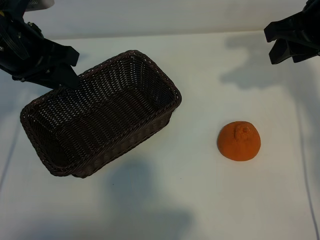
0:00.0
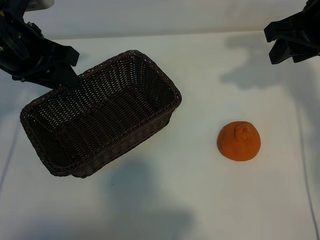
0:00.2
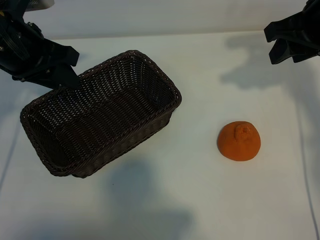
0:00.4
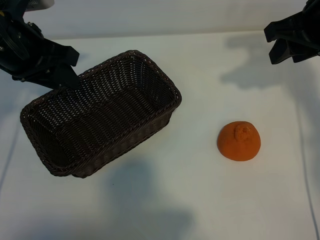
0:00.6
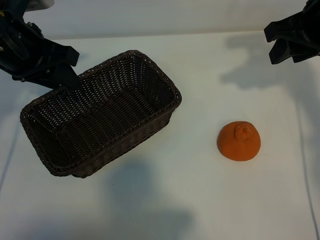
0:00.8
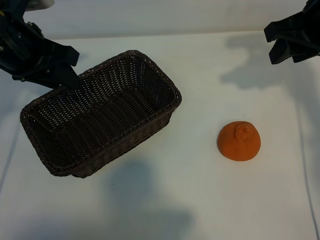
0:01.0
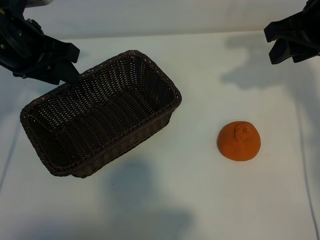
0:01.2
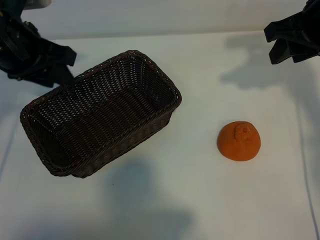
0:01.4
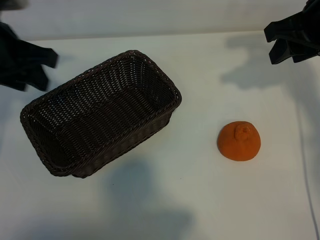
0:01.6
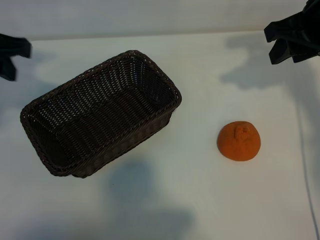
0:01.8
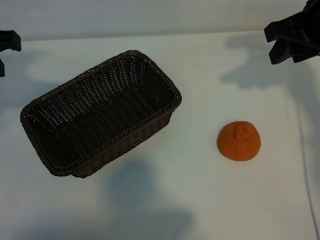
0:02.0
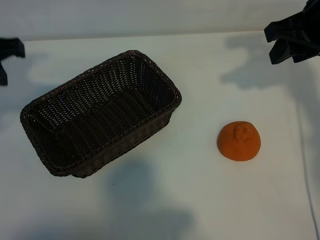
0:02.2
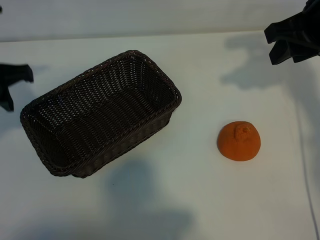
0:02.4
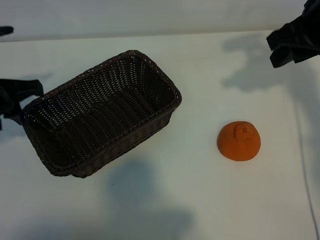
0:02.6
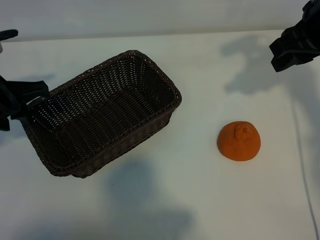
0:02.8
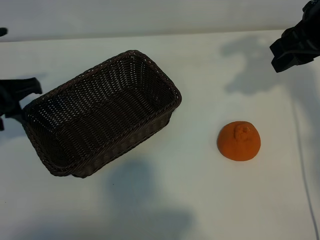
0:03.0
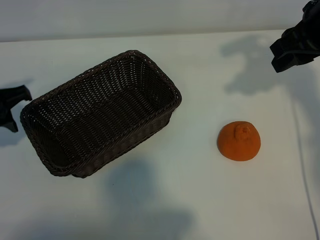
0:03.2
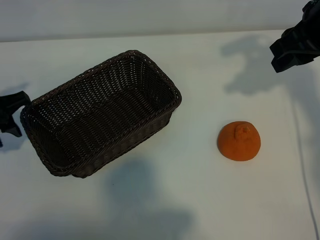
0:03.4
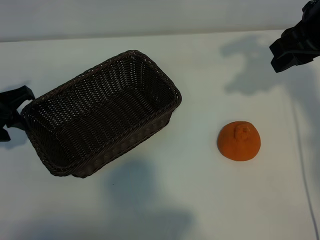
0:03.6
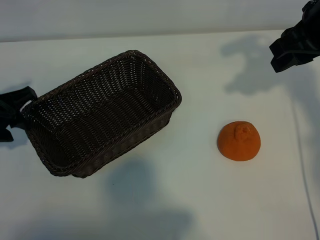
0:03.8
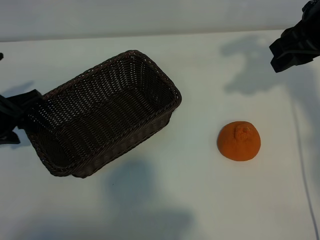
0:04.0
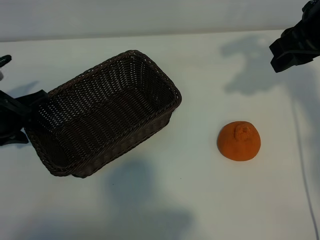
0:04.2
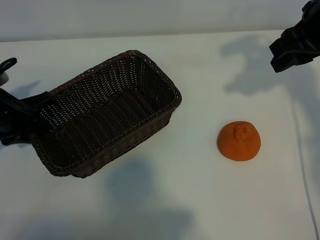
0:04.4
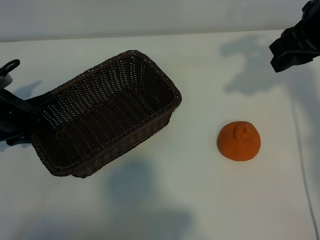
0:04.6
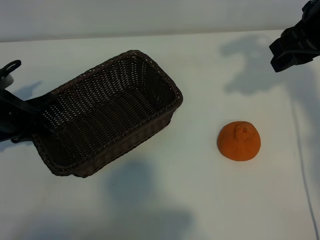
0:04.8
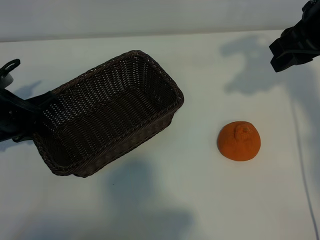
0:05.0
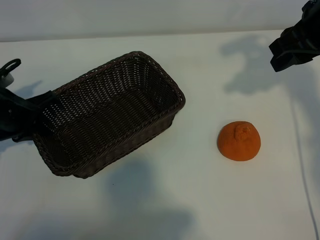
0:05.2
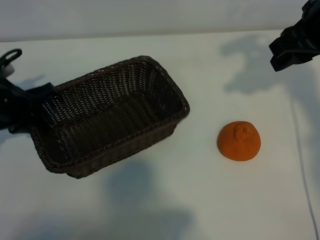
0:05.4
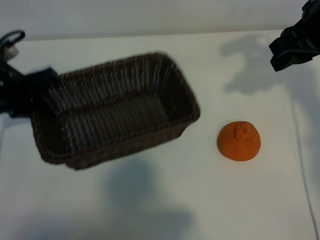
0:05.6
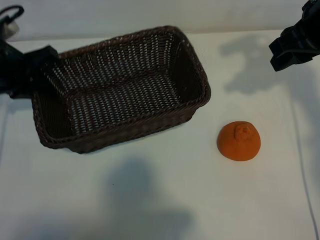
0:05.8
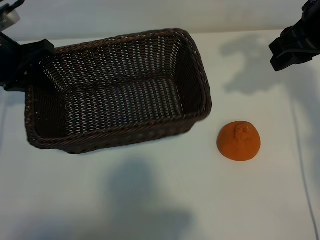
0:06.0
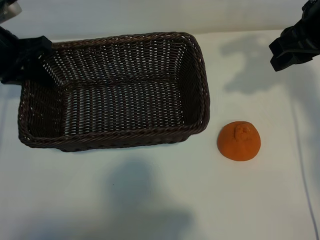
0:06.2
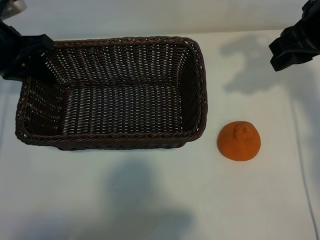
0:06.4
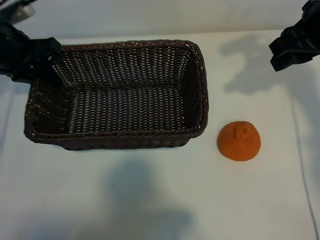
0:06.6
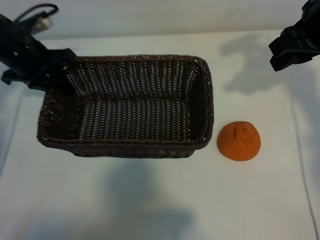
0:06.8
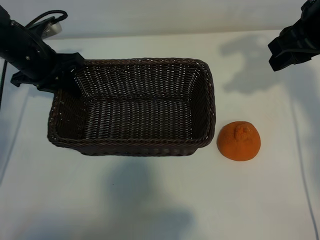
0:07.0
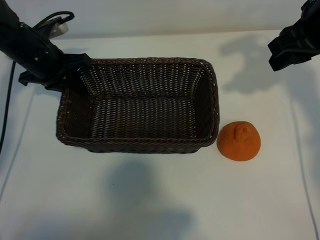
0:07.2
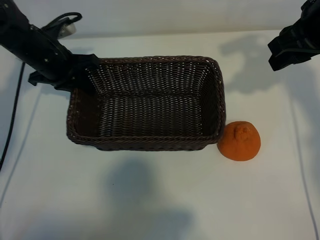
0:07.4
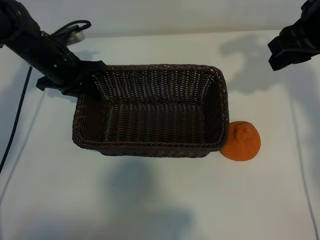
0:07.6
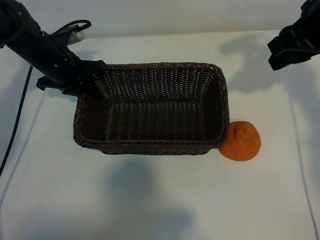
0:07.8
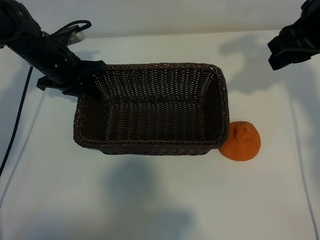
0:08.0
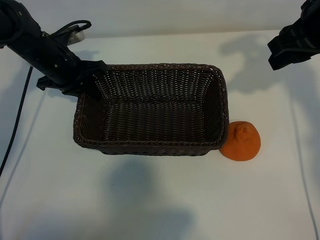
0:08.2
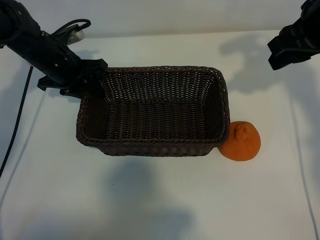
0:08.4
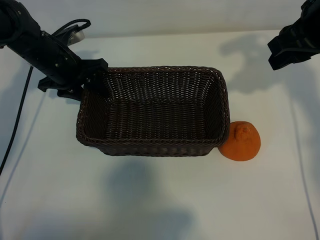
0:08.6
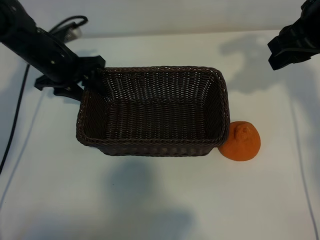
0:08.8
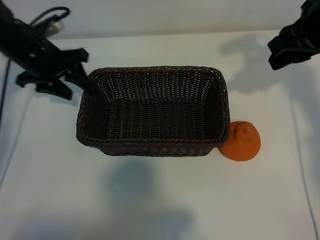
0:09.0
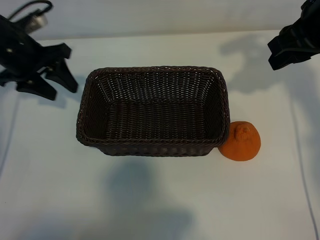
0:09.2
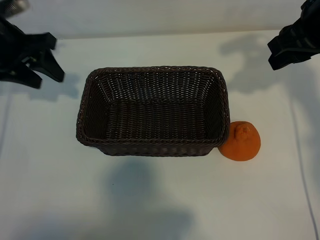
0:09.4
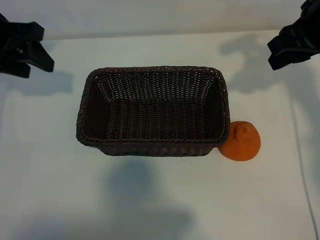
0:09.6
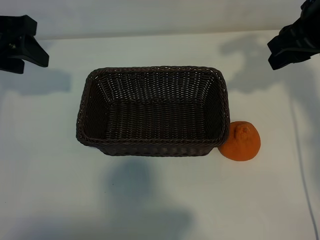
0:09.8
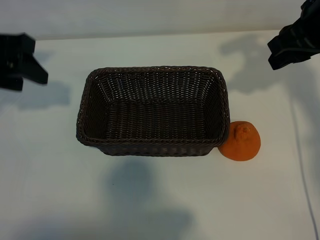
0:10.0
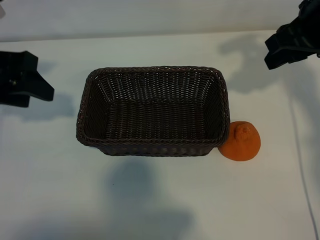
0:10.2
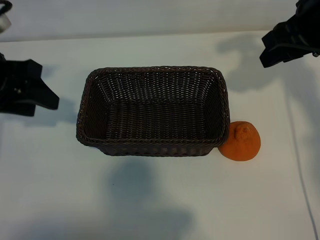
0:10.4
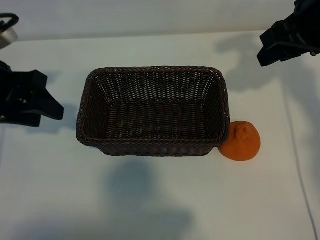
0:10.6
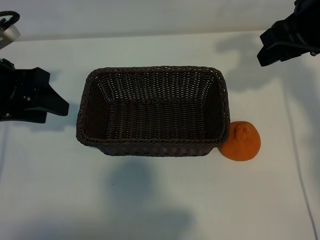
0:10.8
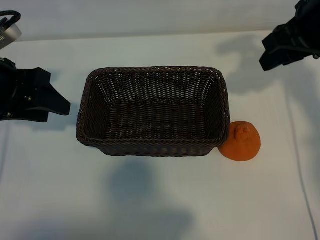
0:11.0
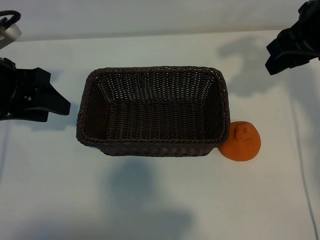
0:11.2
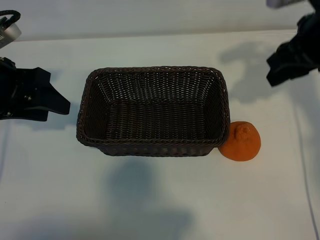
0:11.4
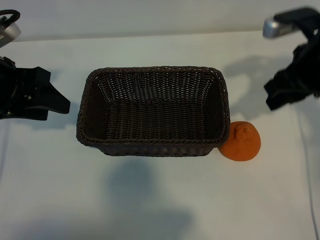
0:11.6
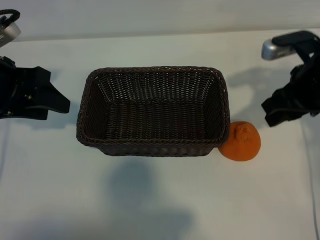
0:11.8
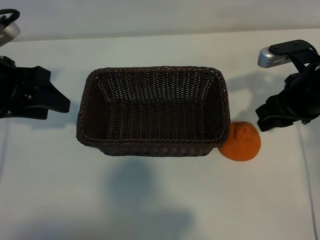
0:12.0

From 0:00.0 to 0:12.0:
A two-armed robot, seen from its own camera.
Task of the whole recording: pick up the orange and put it into the basket.
Step, from 0:01.0 to 0:04.8: Grasp the basket with left gripper.
Step, from 0:05.0 to 0:08.4: Place the basket in the center of view with left gripper.

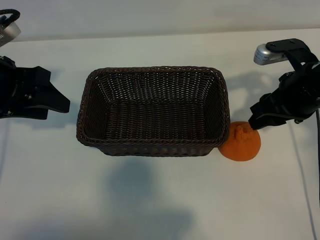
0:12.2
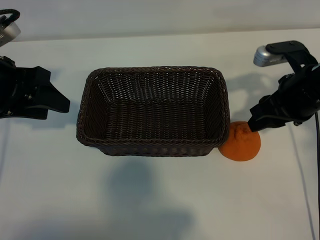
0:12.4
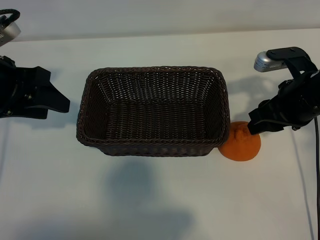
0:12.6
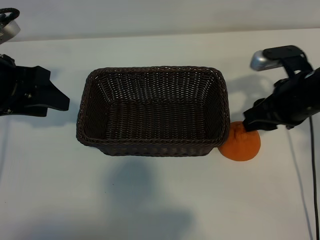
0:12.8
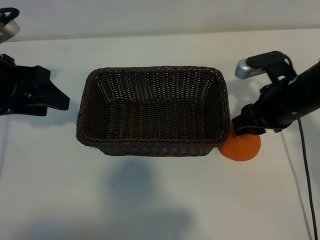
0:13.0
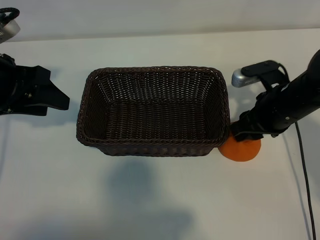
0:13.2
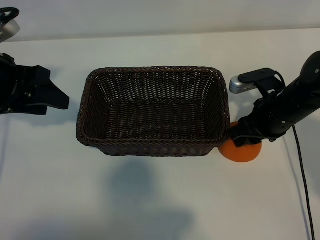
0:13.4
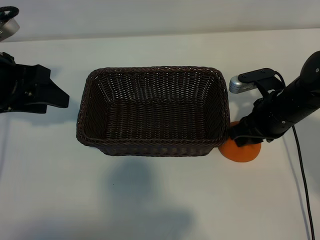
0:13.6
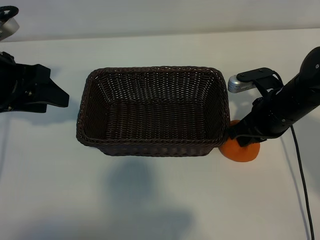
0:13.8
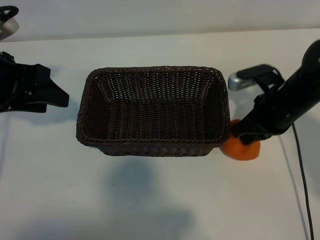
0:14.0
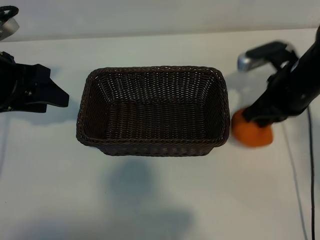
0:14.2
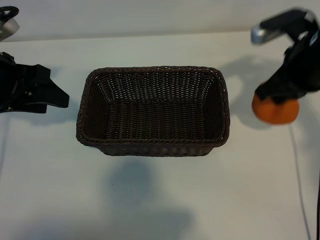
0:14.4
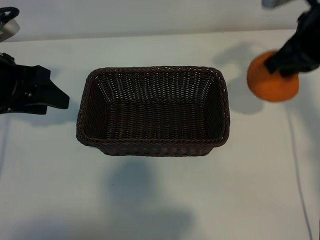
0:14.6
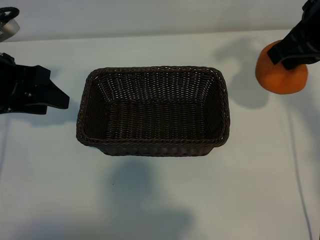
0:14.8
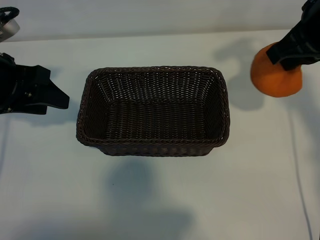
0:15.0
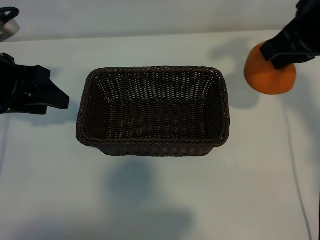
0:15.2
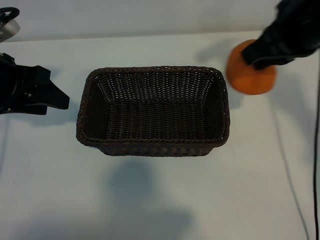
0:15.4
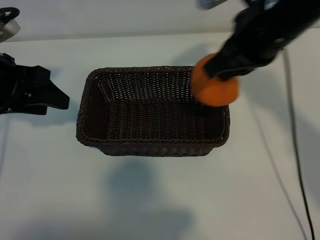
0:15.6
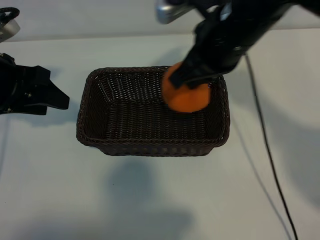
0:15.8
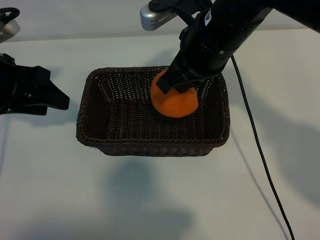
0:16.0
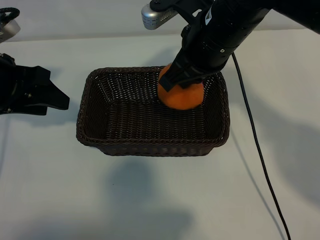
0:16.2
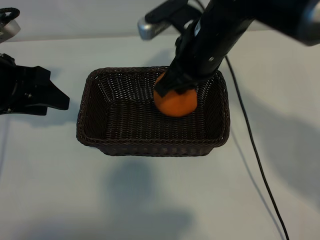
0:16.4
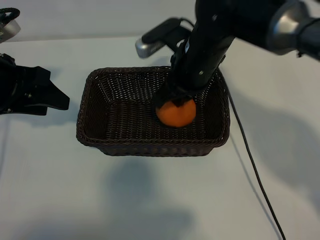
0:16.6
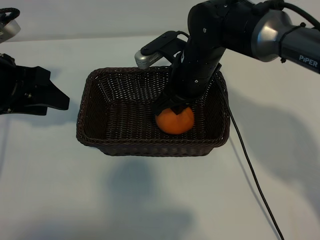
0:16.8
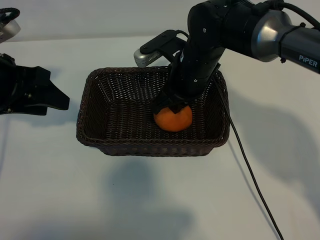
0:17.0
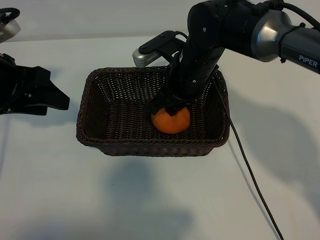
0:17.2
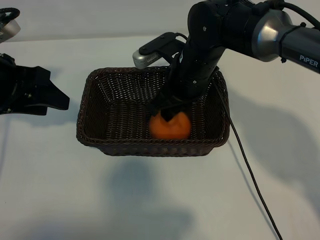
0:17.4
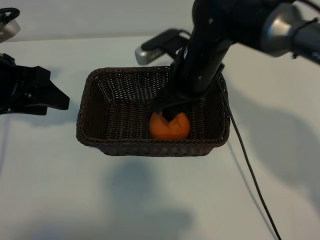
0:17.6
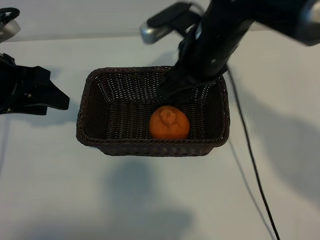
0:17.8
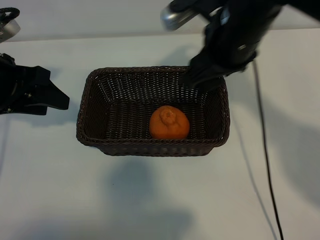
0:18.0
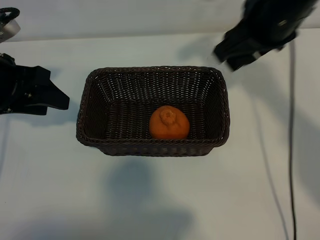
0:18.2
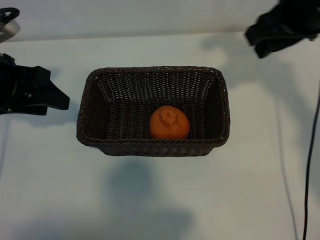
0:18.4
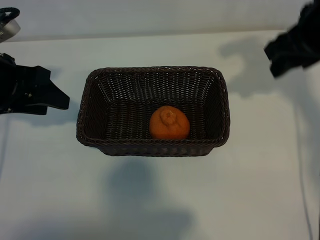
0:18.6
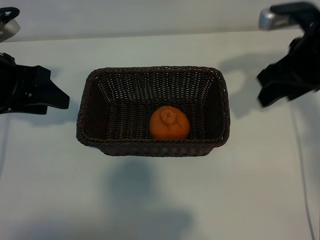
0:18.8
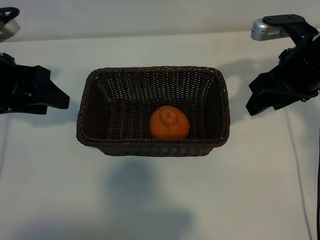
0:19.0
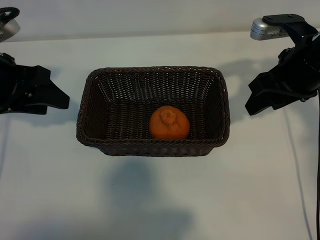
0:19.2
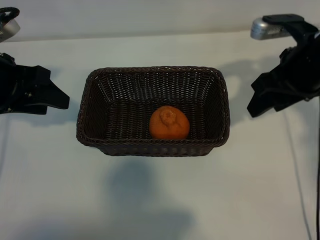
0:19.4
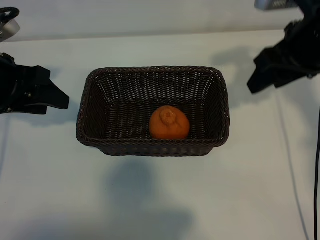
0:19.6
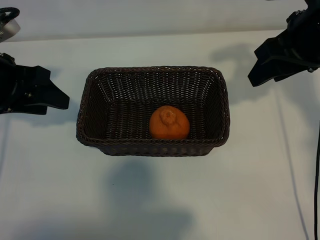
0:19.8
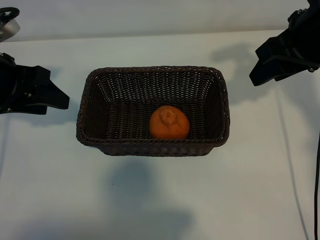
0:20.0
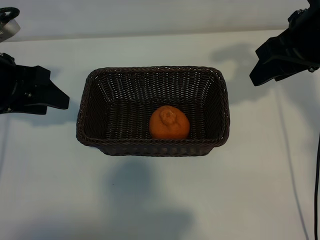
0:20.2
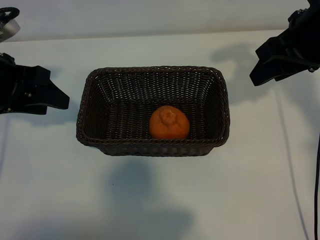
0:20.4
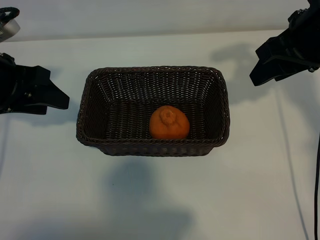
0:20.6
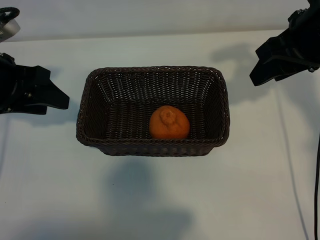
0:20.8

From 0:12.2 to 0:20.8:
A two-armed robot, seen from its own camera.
Task of the whole recording: pick up the orange and put it into the basket.
Step, from 0:14.0 to 0:17.4: Place the orange in the basket with right gripper.

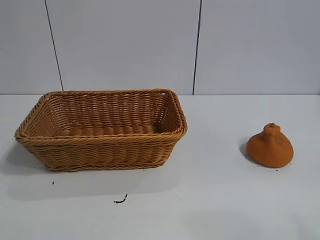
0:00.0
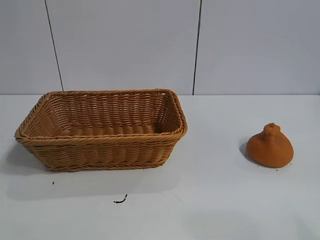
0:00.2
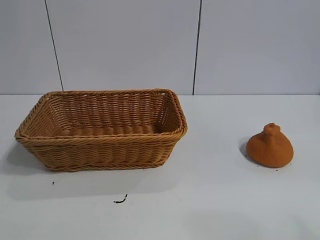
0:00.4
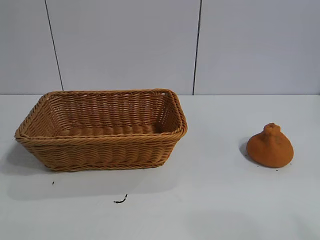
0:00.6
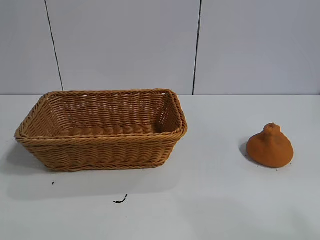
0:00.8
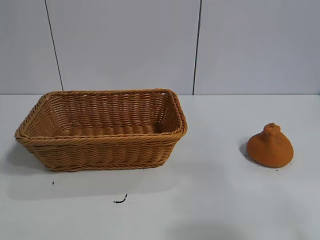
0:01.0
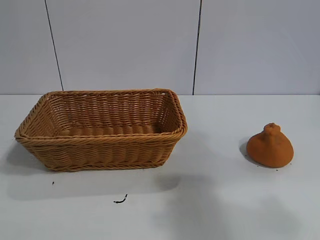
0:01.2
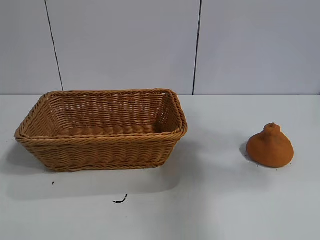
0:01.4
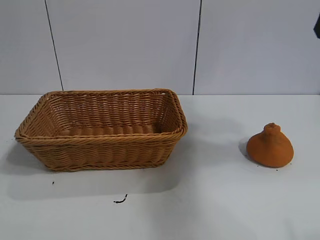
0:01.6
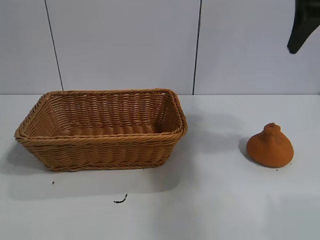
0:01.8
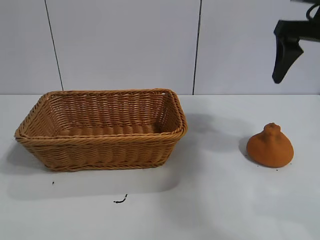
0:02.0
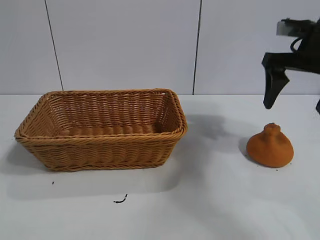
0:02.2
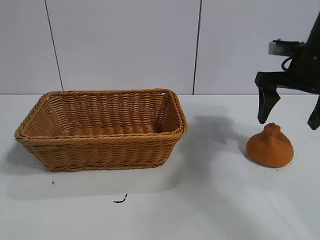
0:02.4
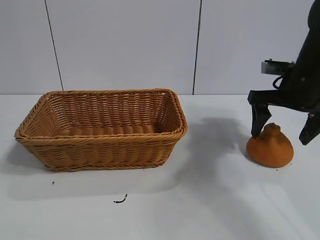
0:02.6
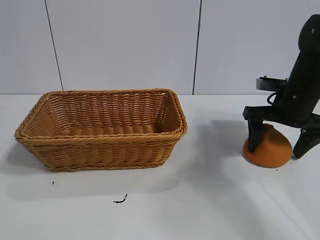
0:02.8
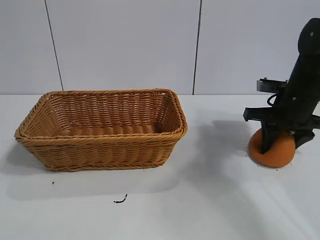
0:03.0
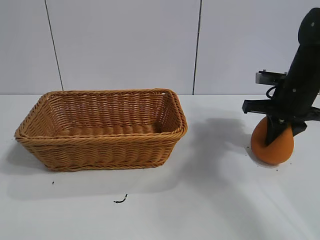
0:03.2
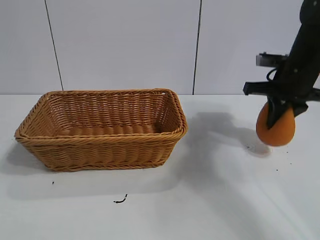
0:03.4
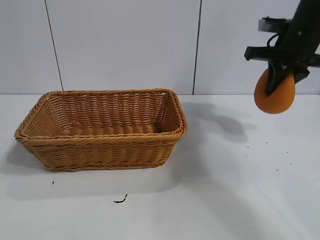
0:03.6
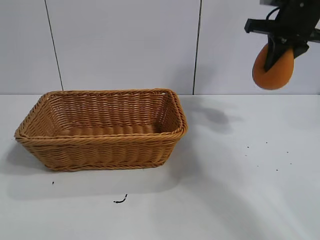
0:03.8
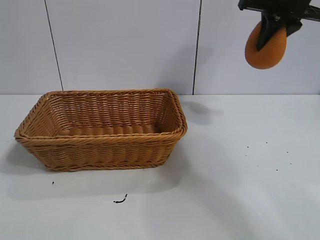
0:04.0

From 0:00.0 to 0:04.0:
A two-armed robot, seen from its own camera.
Task of the whole recording: pick up the orange and put it into the basket.
Step, from 0:00.6 to 0:03.0: Grasp the orange with right gripper.
